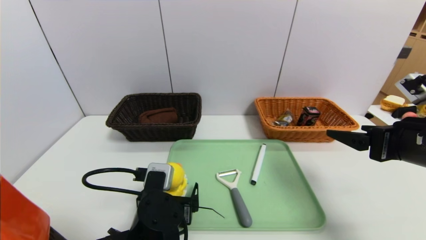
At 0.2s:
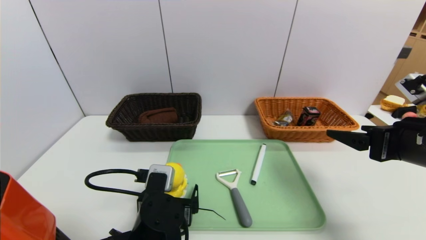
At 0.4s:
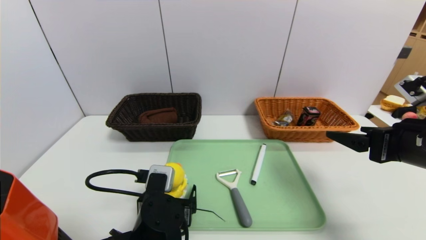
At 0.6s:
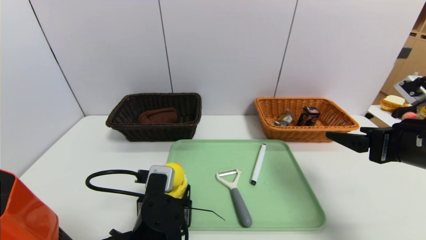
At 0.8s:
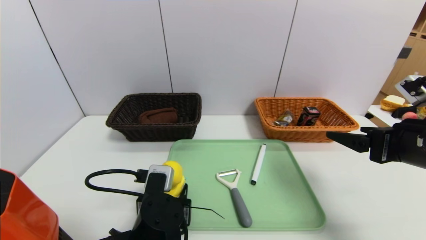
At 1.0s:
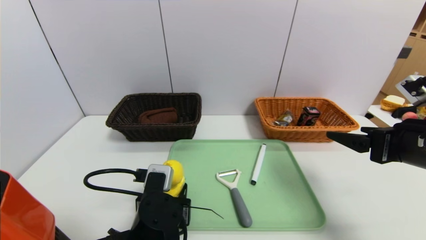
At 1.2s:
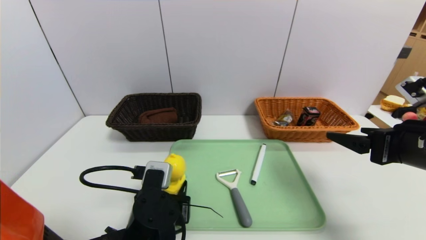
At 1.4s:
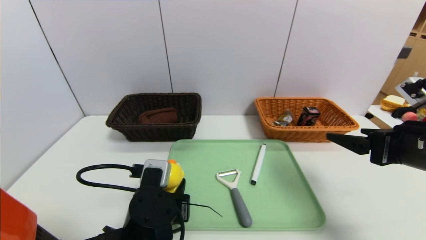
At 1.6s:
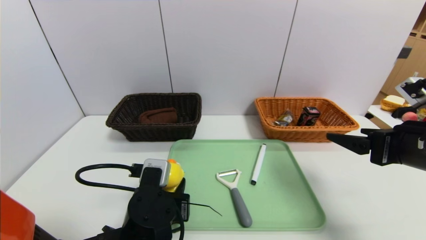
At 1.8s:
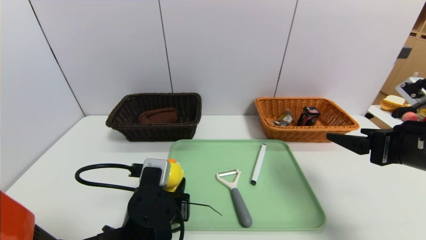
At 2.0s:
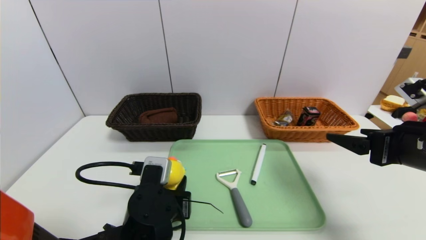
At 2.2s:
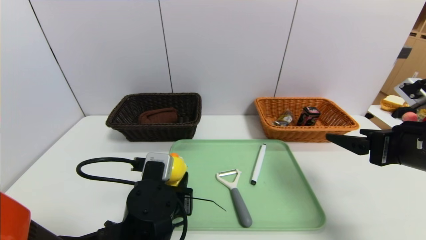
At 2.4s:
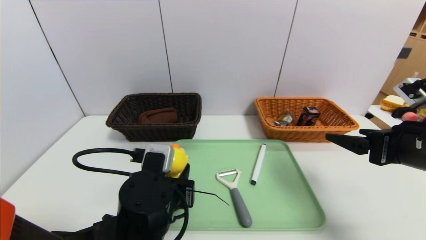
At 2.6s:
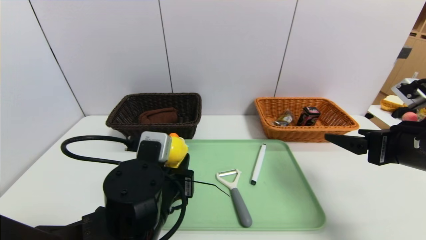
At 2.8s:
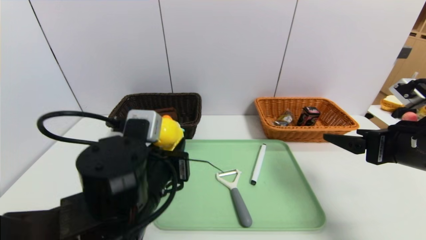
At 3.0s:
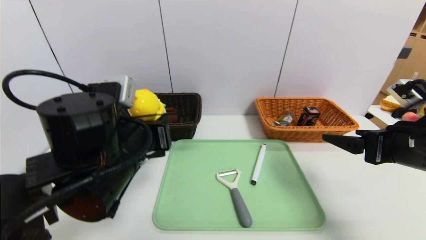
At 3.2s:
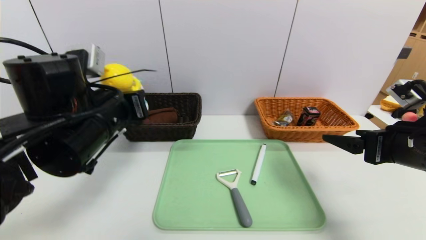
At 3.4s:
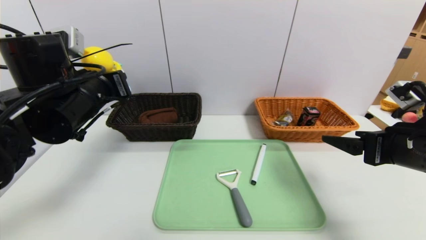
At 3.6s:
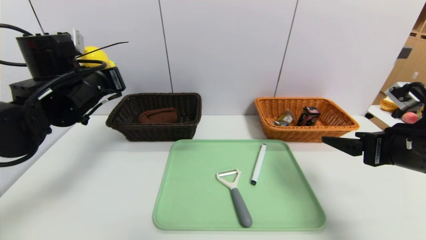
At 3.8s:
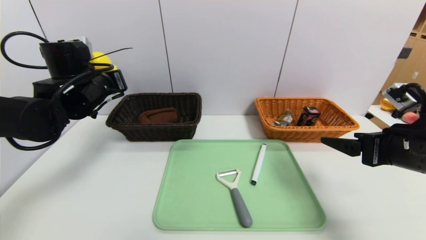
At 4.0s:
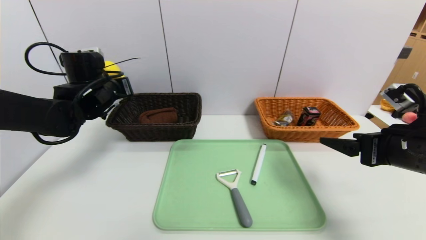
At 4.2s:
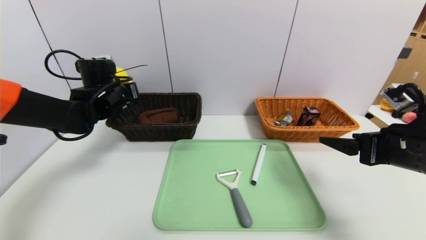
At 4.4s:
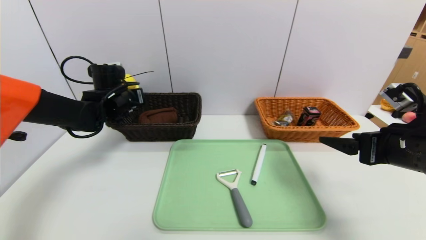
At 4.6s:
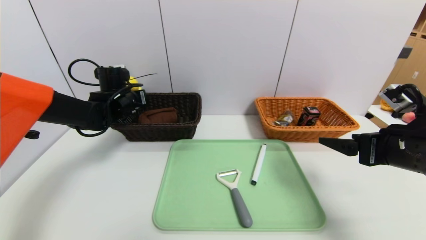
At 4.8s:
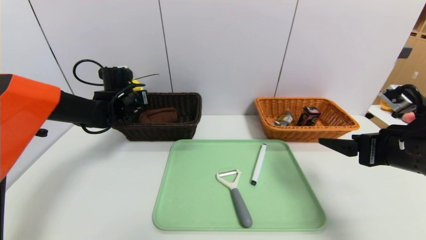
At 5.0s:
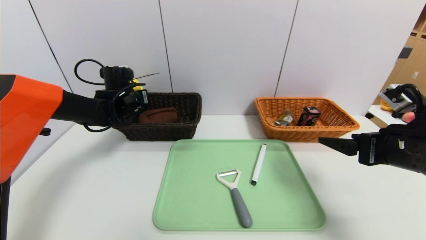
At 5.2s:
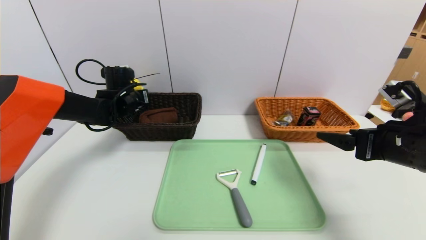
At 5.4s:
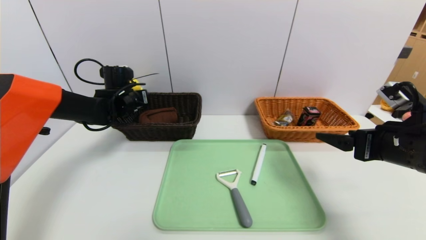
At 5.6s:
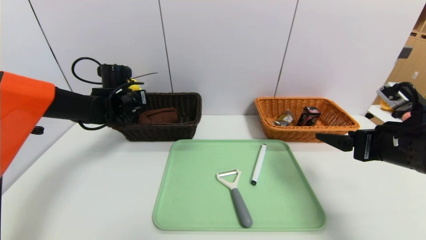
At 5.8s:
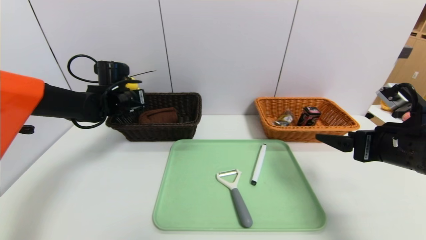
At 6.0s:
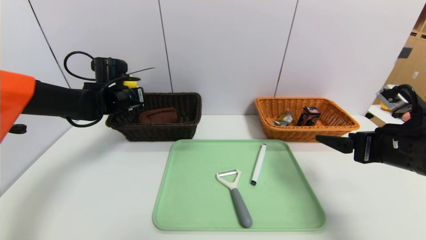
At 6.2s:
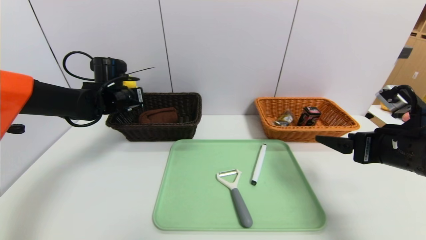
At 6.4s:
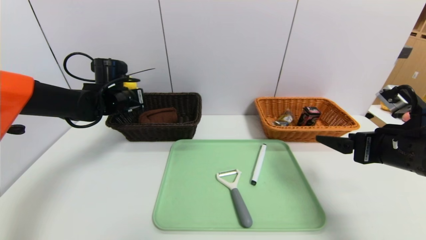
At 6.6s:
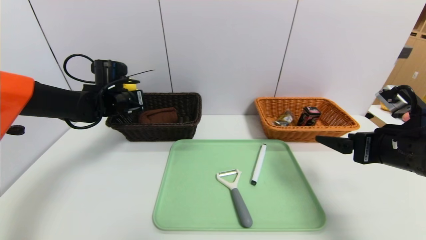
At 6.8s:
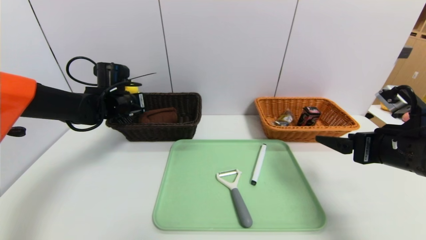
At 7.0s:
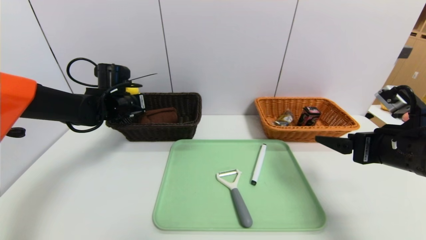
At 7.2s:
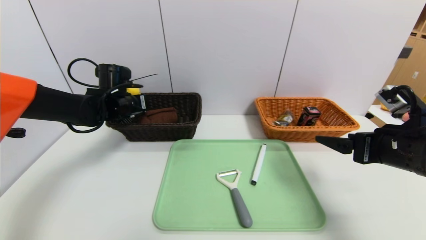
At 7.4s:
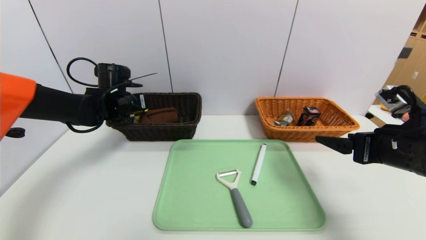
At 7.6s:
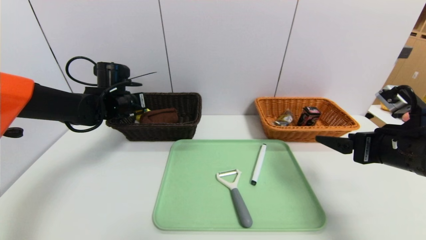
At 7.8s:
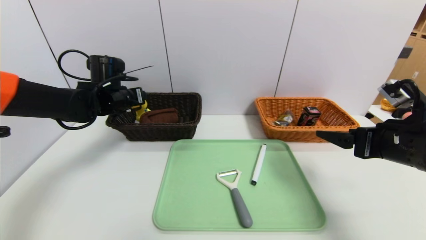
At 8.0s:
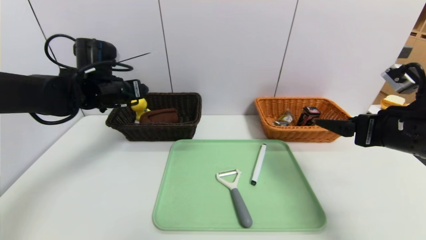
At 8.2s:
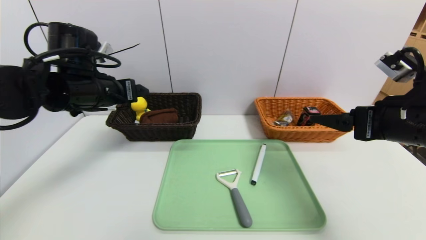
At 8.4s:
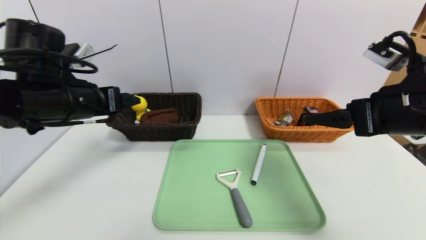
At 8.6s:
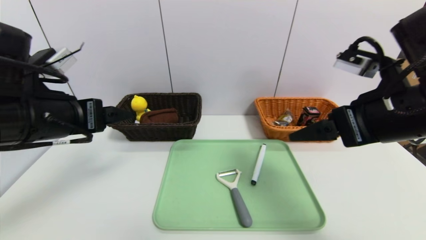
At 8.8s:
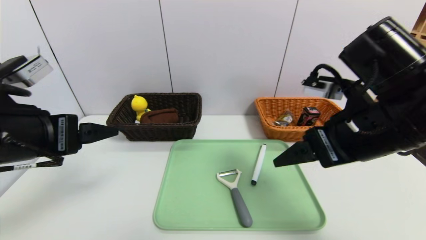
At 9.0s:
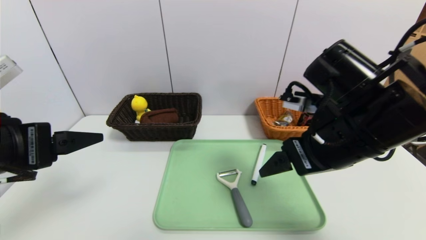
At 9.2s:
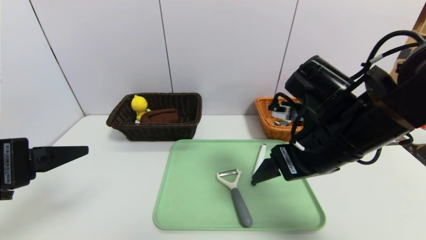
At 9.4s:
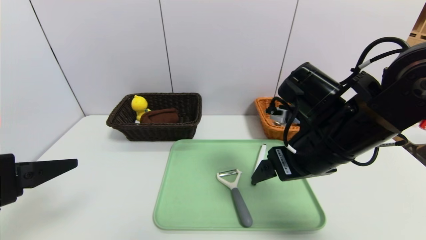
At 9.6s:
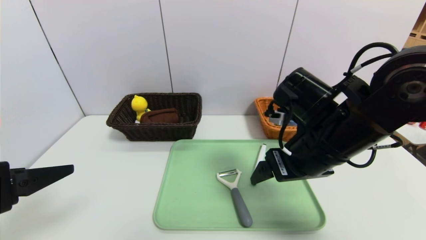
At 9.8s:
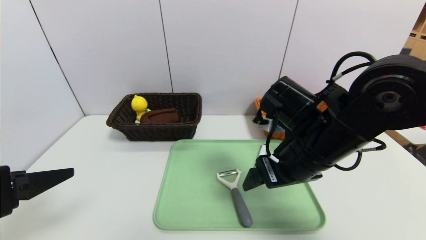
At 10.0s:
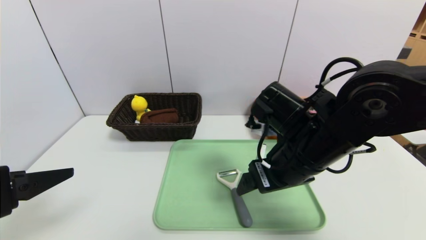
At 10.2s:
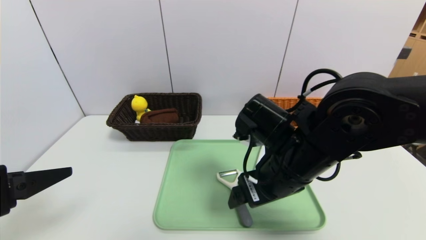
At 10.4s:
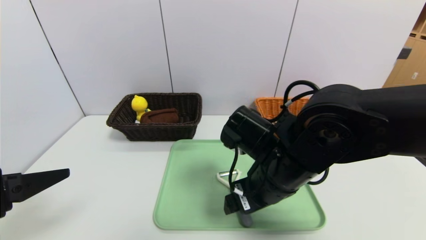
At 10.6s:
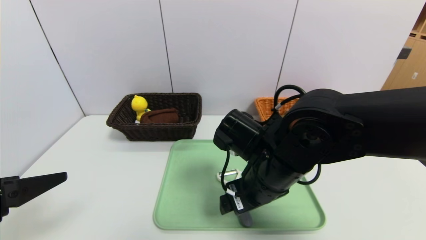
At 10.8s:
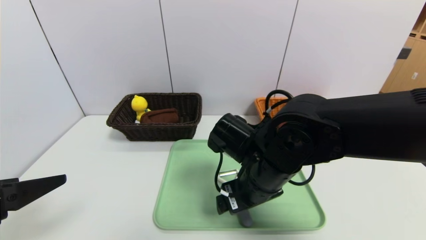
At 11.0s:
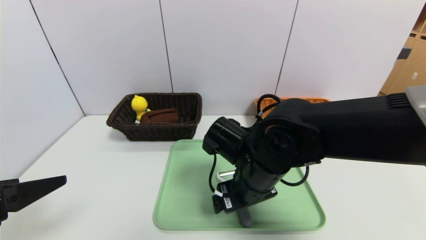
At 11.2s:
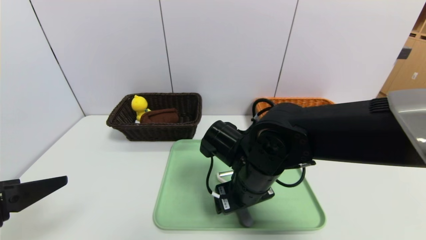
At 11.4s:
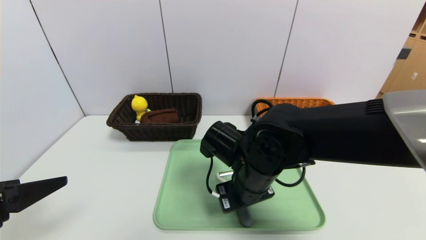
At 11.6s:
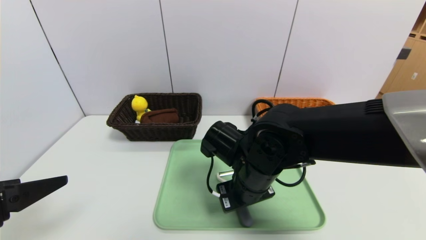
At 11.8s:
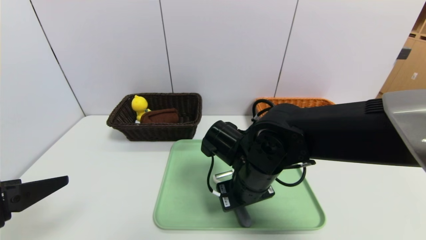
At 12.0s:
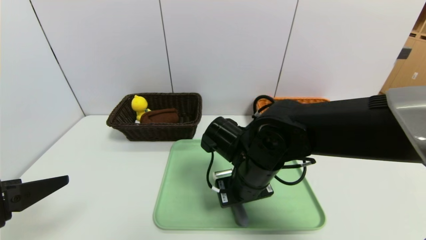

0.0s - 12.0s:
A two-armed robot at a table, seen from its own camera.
Task of the whole recording: place the food in the right basket with the right gripper, and place the non food items in the left basket with the left gripper.
Step, 0.0s - 8.2s: Grasp the duck toys and put it in the left basket.
0.0s - 1.6s: The left gripper closes up.
1.6s - 3.0s: The left gripper goes some 15 cm upward.
3.0s - 4.4s: The left gripper heads forward and to the left, covering roughly 25 cm.
4.4s - 6.0s: The grippers move only a little.
6.0s - 7.6s: The left gripper opens.
7.6s - 9.0s: The right gripper travels to the left by approximately 15 cm; the left gripper heads backward, covering some 30 cm.
9.0s - 10.4s: The left gripper moves about 5 cm. The right gripper moves to the left and downward, some 10 cm.
10.4s - 12.0s: The right gripper closes its fingers.

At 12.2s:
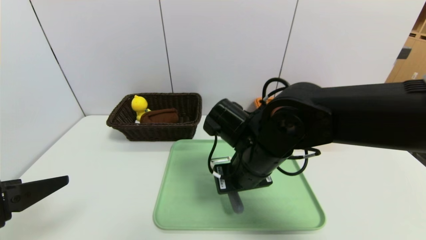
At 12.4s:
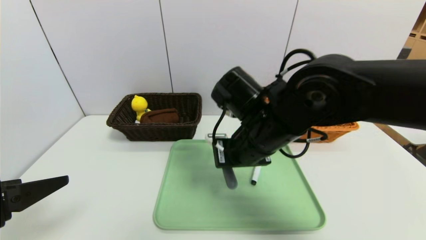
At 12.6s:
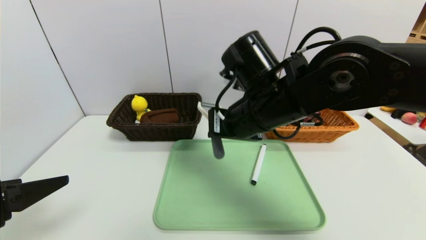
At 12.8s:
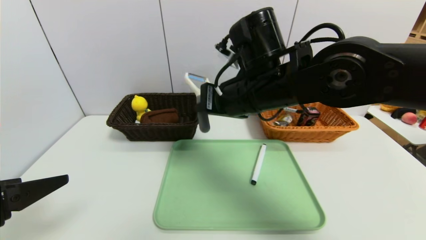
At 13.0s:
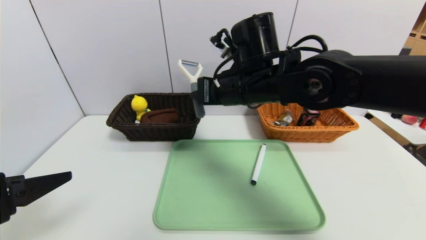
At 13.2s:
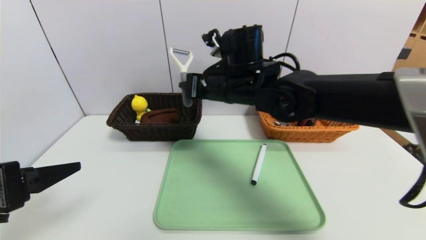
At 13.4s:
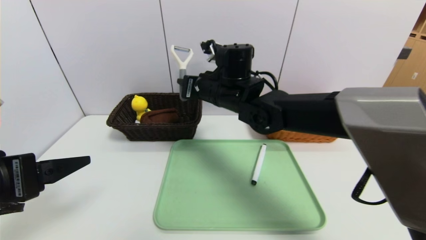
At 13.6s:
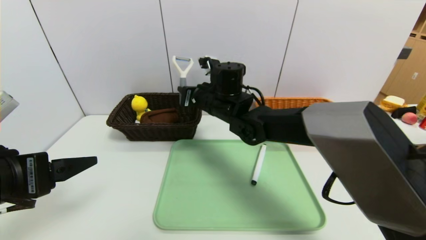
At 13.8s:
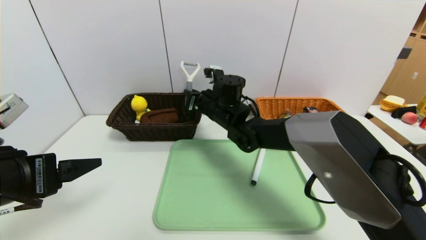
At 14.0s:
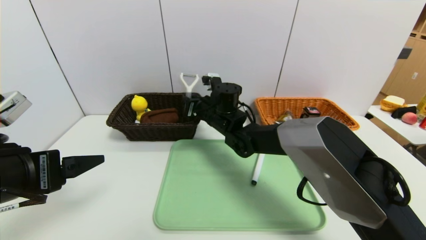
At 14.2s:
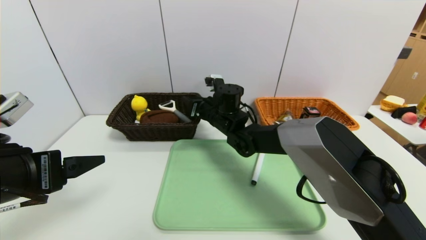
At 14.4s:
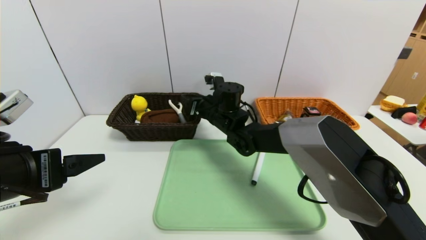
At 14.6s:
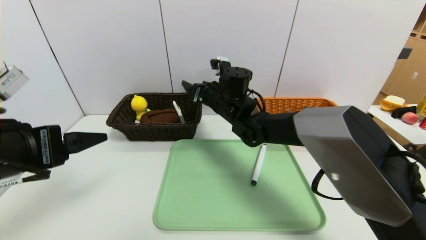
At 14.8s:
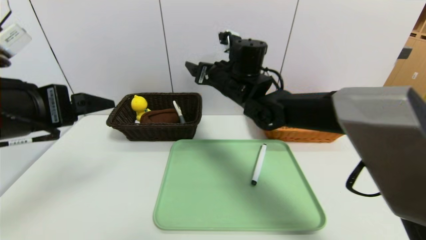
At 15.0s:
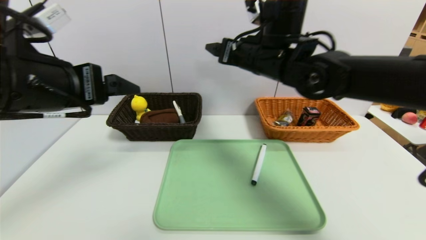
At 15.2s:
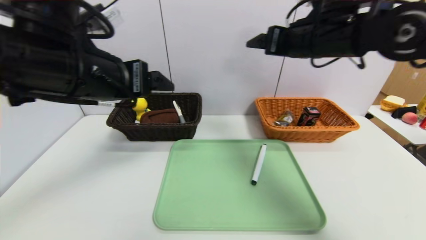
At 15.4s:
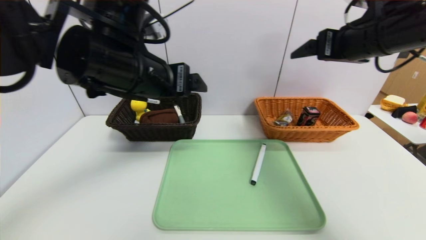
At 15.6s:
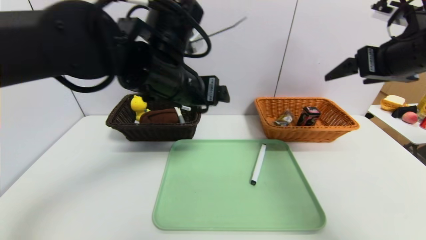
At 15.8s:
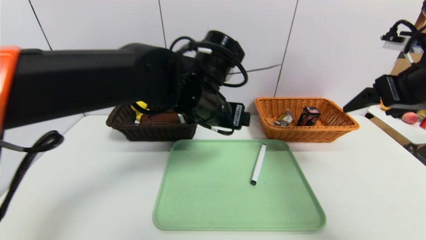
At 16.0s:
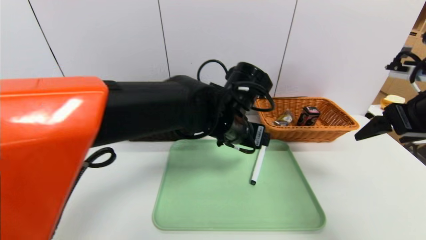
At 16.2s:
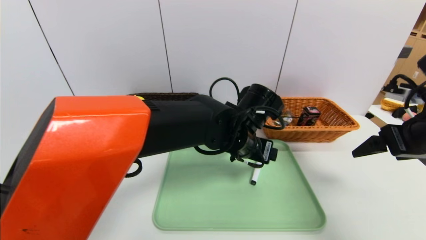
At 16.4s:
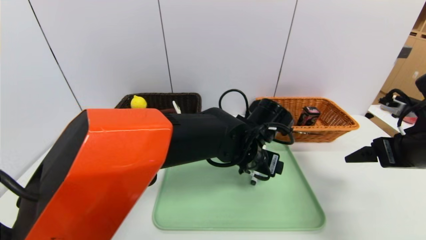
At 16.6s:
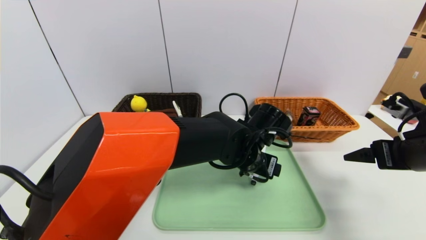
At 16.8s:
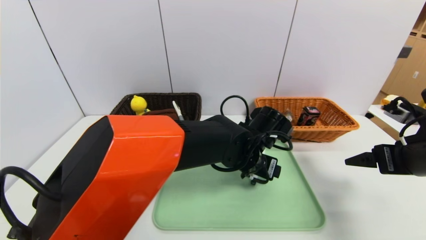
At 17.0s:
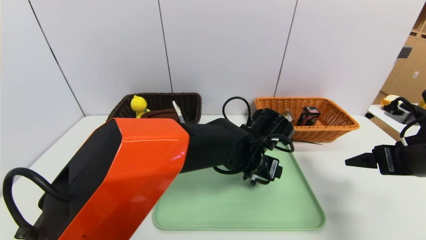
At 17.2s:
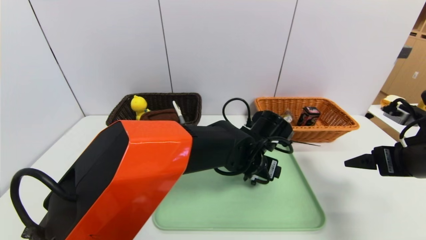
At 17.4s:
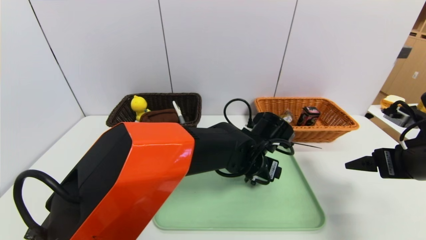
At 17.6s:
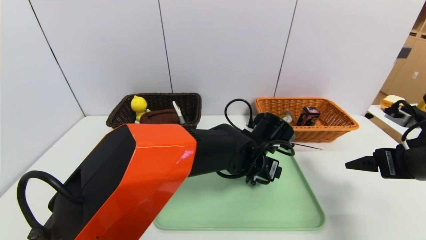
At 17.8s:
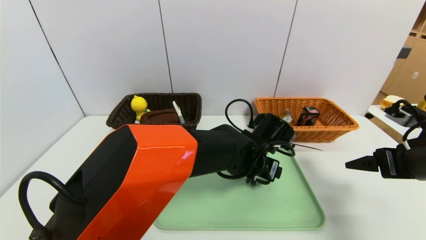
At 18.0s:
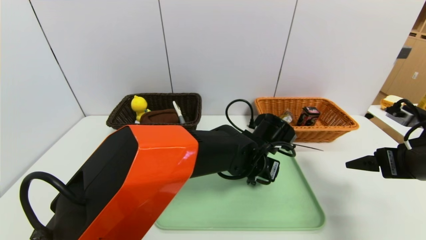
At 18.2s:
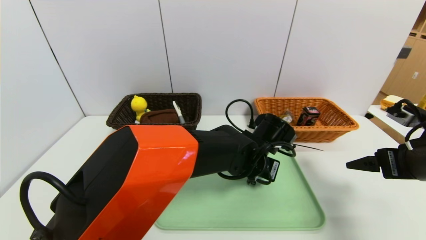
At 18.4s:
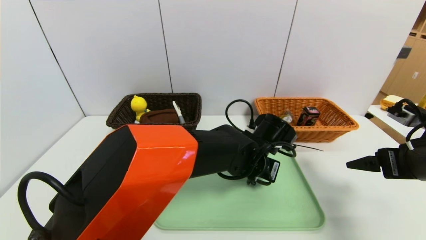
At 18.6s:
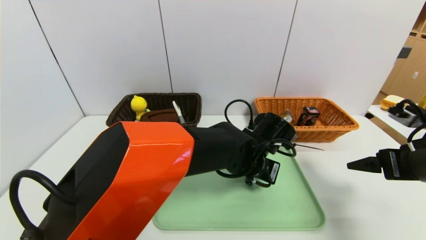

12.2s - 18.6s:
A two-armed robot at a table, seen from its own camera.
Task of the whole recording: place the food in the right basket with the right gripper, and place the non food items in the left basket with the left gripper.
Step, 12.2s - 15.4s: Grasp the peeler and put it in the left basket.
12.2s - 13.8s: The left gripper shifts by some 5 cm; the right gripper shifts approximately 15 cm forward.
13.8s - 15.4s: The left gripper goes roughly 20 cm to the right, forward and upward, while the right gripper travels to the right, upward and backward by approximately 35 cm, and opens up.
15.4s - 17.0s: The right gripper is displaced downward, backward and to the right by roughly 20 cm, while the left gripper moves to the right and downward, about 25 cm.
17.0s - 18.6s: The left gripper closes.
